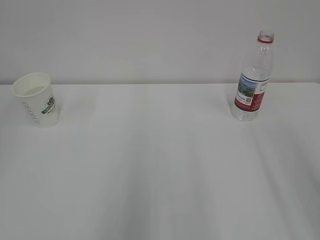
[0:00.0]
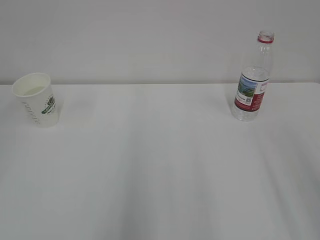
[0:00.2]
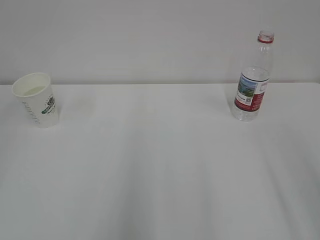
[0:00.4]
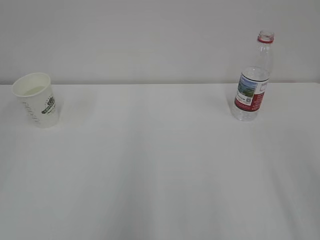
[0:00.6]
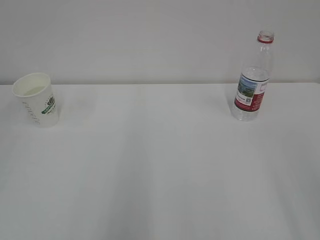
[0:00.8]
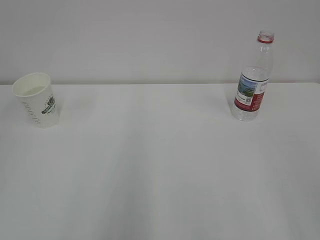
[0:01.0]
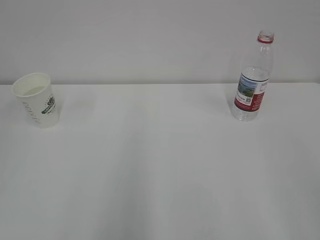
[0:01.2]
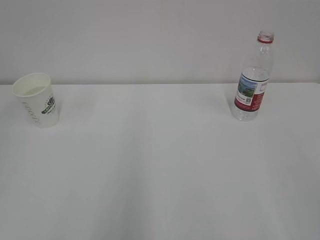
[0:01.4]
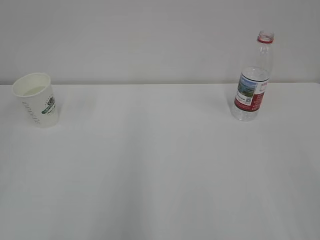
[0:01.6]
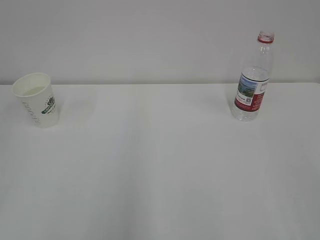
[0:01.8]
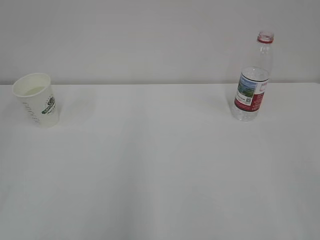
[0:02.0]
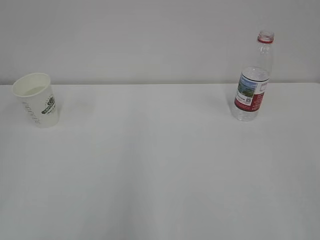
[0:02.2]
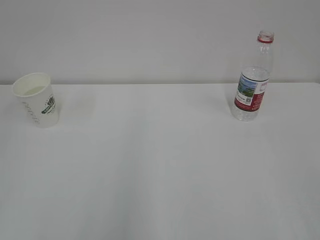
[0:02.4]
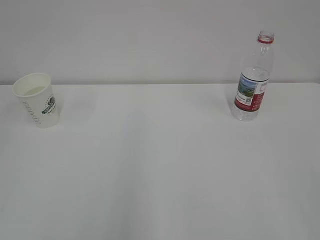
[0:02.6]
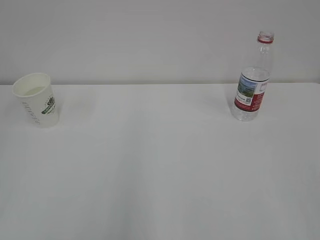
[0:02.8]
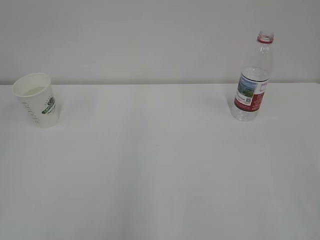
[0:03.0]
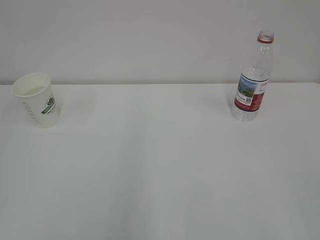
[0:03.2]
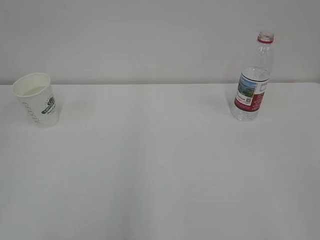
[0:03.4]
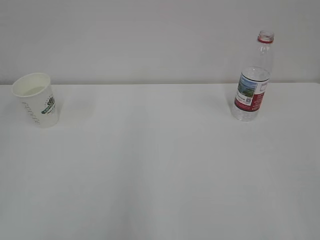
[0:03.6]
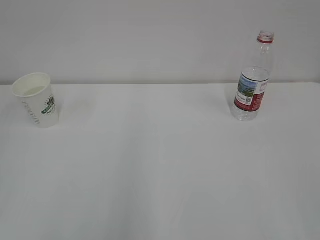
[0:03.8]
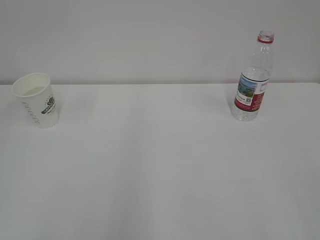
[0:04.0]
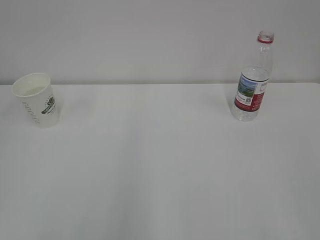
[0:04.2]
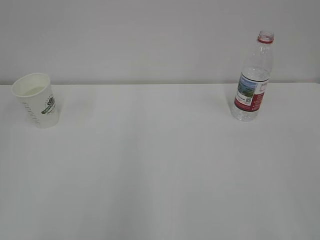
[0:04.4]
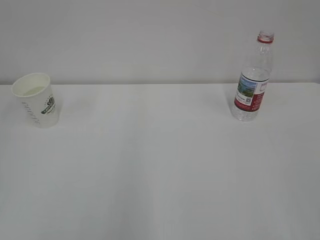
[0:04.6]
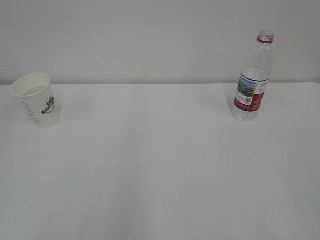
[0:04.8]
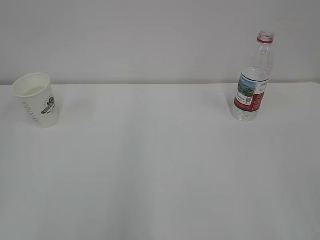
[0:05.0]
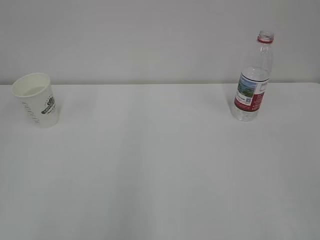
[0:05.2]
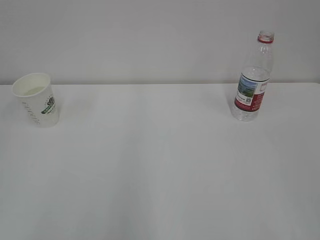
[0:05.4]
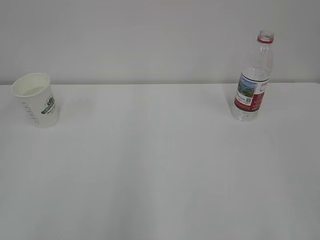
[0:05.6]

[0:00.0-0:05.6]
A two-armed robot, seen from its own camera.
2.8 to 5.6 s: Both grippers stay put.

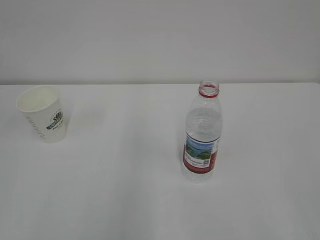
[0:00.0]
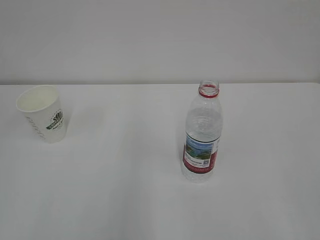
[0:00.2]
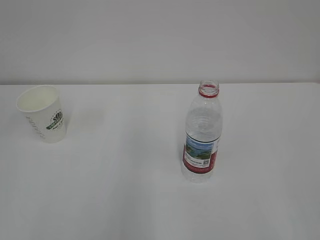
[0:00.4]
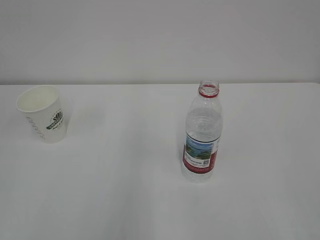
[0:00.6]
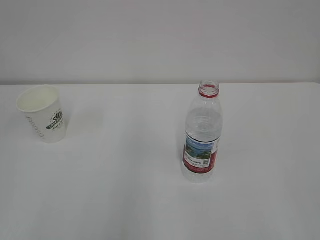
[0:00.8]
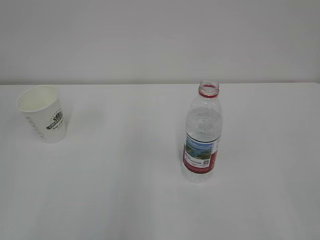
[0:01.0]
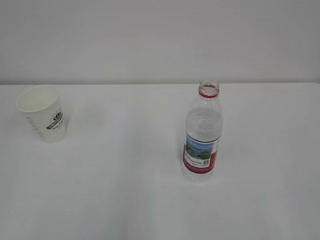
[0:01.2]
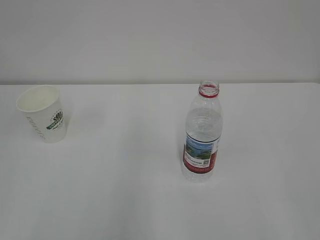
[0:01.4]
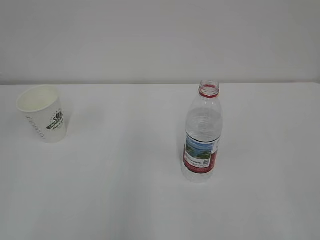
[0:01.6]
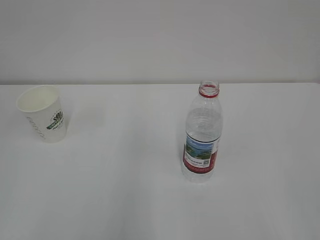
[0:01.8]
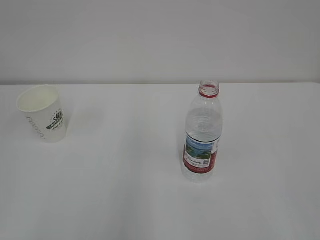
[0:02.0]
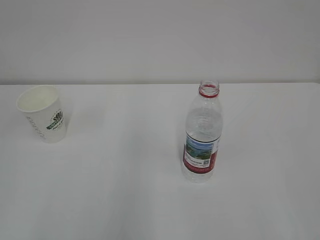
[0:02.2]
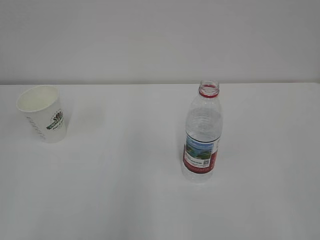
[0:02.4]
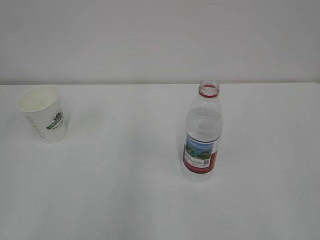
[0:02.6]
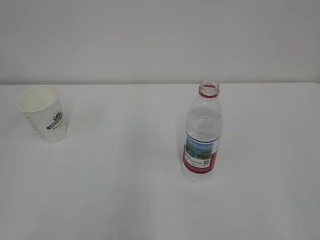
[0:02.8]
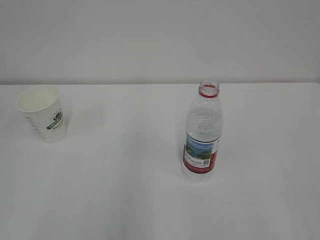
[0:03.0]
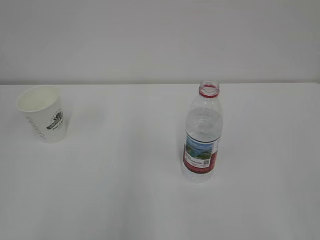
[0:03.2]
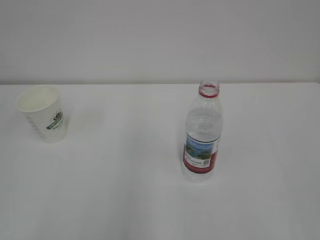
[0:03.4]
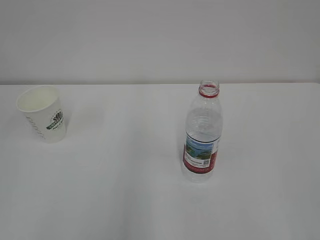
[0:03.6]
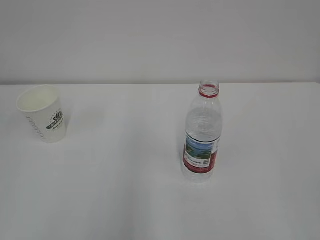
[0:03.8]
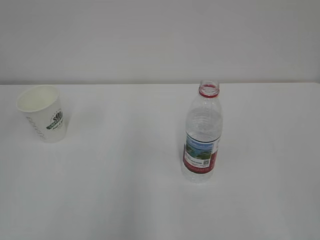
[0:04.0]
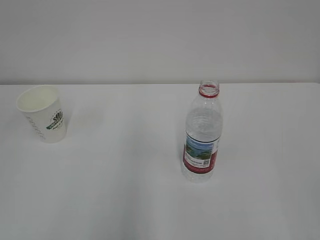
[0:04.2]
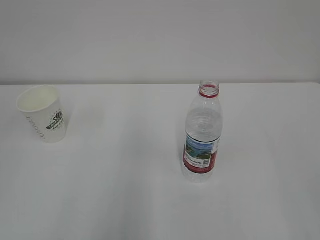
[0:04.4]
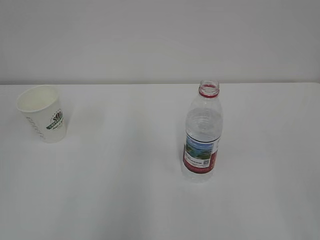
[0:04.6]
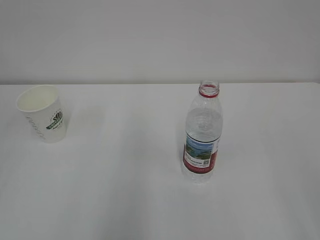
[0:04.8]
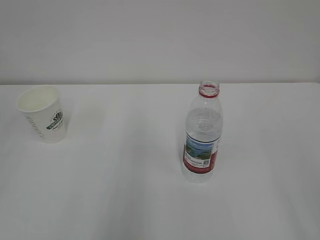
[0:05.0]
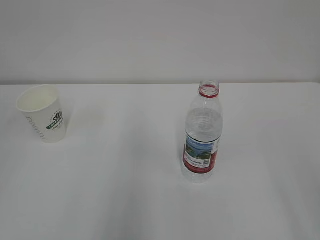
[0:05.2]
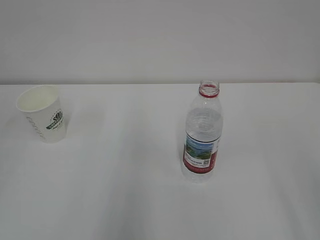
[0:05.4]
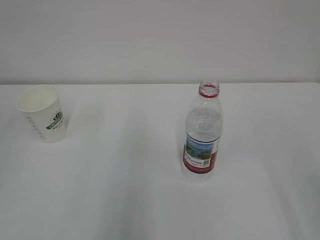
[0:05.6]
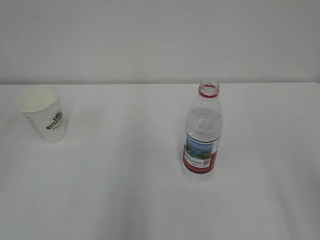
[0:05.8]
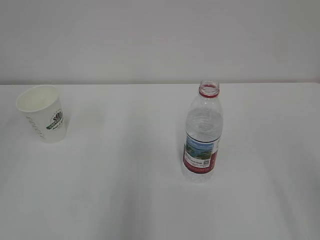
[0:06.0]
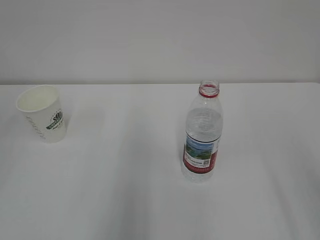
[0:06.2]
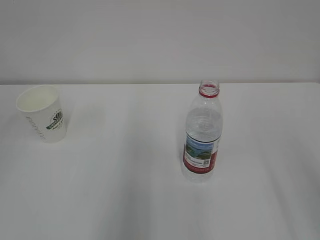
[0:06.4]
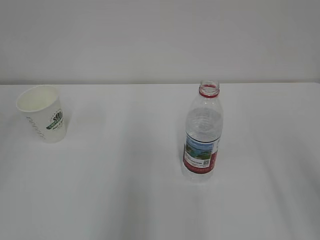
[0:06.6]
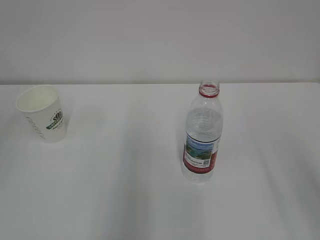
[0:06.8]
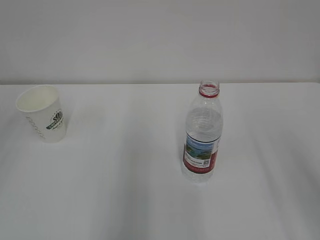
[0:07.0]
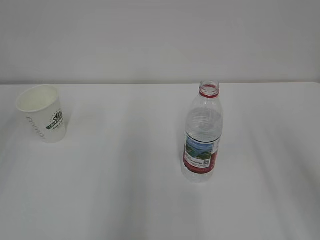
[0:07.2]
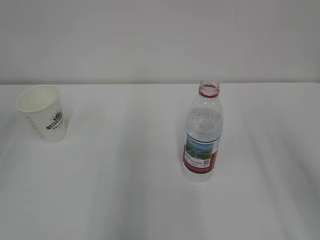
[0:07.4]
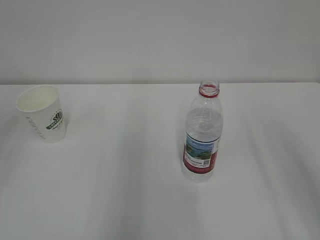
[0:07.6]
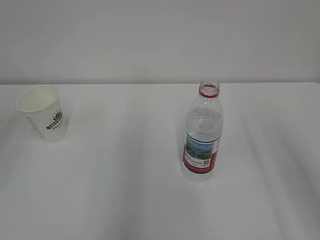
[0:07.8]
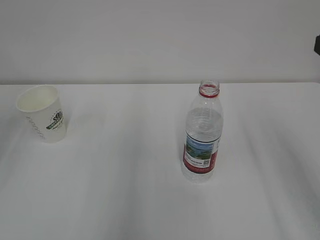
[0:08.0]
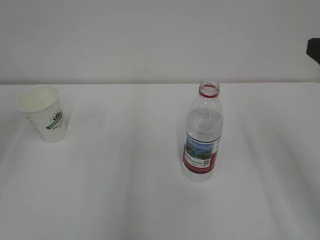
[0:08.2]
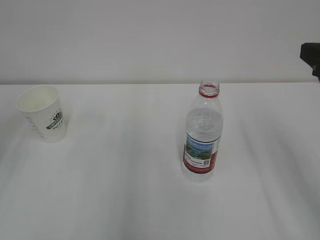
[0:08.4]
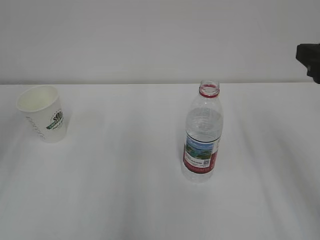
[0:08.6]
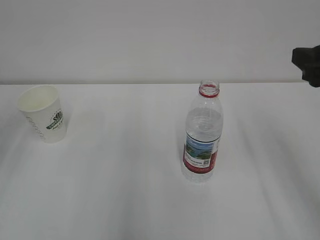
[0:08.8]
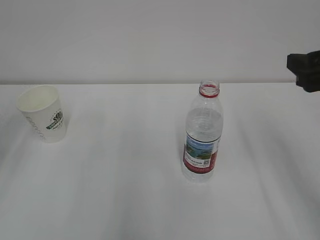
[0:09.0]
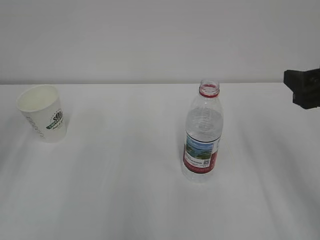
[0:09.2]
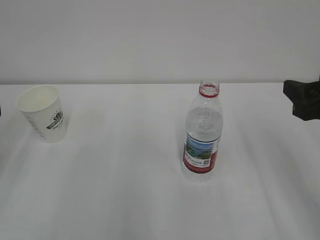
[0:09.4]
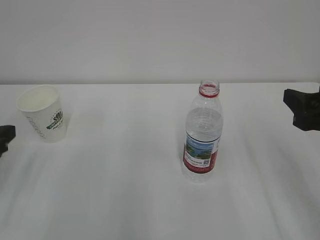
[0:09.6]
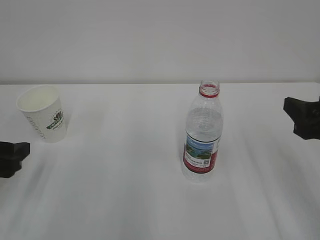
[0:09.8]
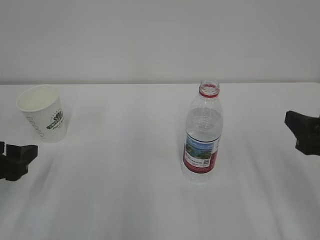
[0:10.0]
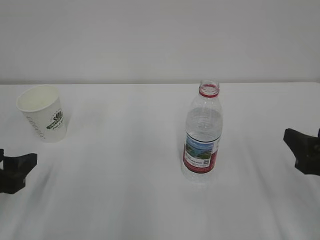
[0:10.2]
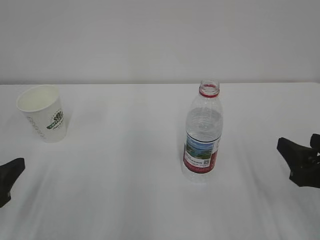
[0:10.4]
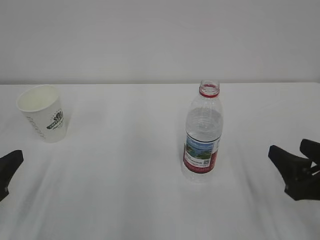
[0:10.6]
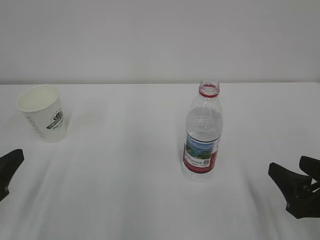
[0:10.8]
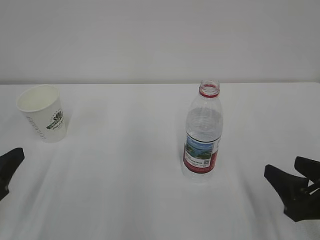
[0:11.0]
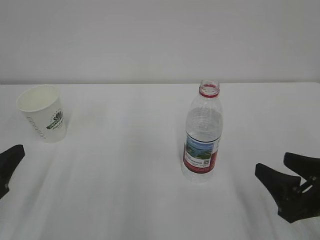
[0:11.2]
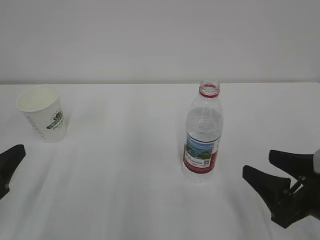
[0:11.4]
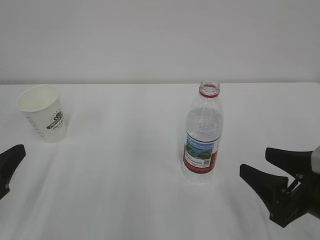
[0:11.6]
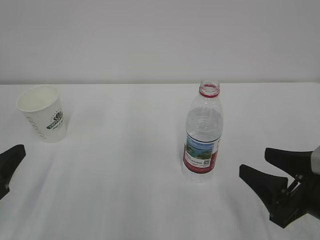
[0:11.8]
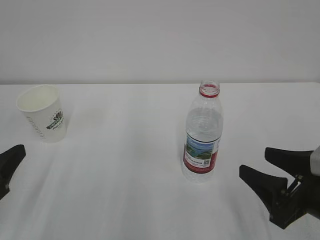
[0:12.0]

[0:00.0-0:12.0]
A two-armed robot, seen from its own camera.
1.6 to 3.0 s: Both grippers stay about where they are.
7.6 to 9.0 s: The right gripper shifts approximately 10 cm forward and downward.
9.0 to 10.4 s: Both grippers move downward and backward, about 15 cm.

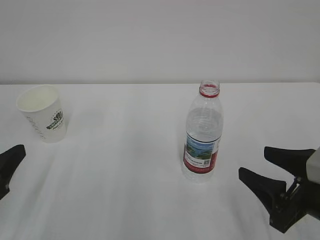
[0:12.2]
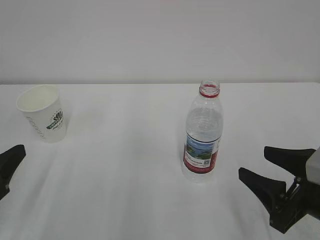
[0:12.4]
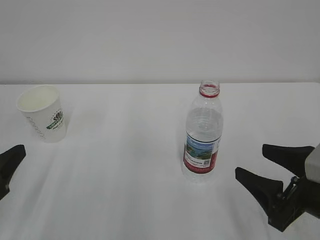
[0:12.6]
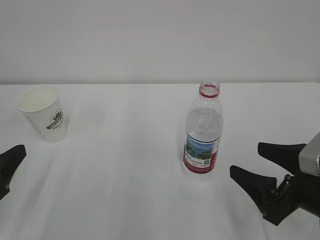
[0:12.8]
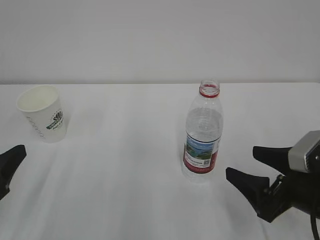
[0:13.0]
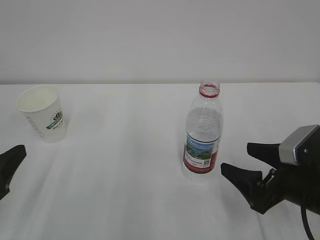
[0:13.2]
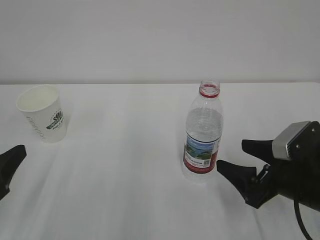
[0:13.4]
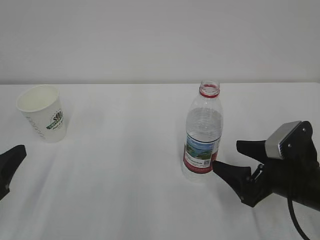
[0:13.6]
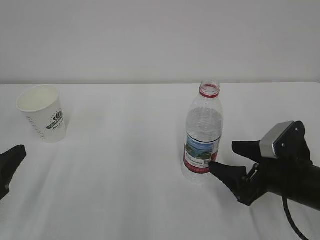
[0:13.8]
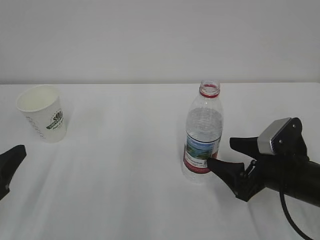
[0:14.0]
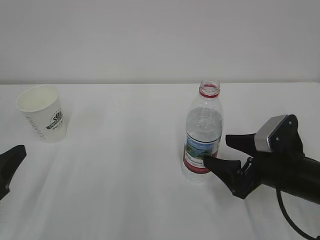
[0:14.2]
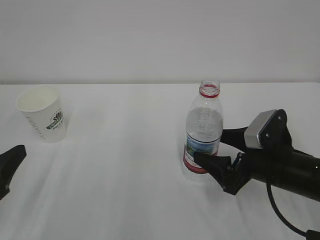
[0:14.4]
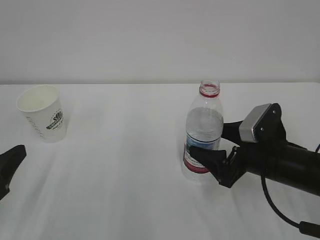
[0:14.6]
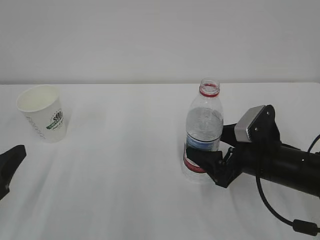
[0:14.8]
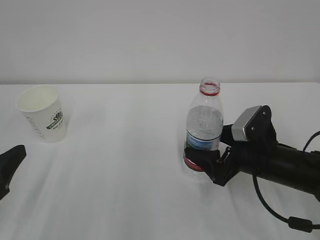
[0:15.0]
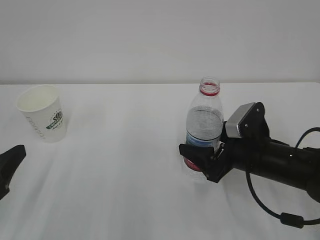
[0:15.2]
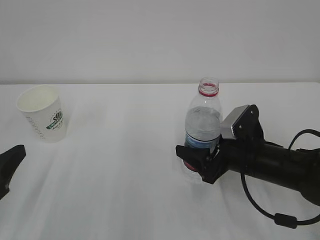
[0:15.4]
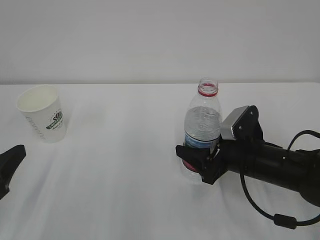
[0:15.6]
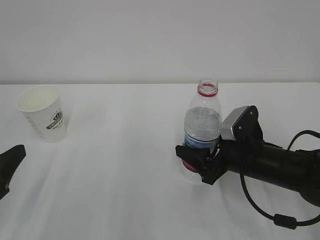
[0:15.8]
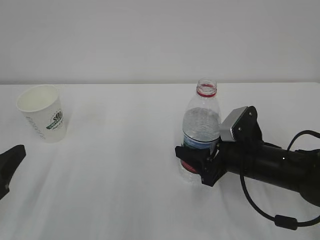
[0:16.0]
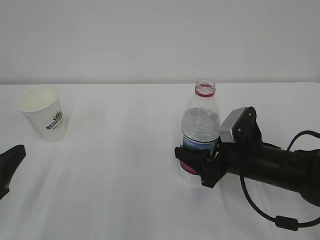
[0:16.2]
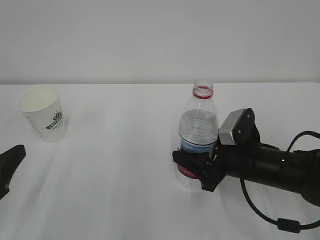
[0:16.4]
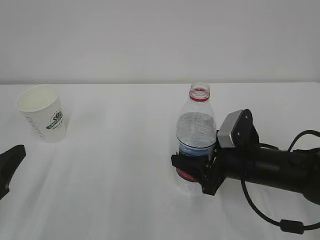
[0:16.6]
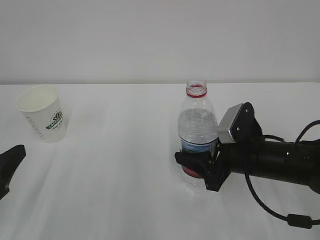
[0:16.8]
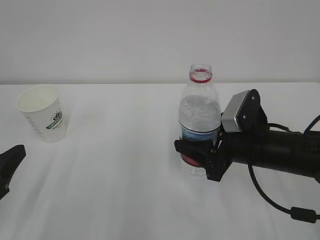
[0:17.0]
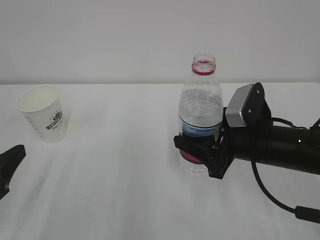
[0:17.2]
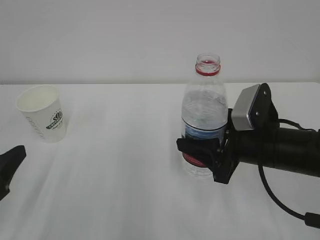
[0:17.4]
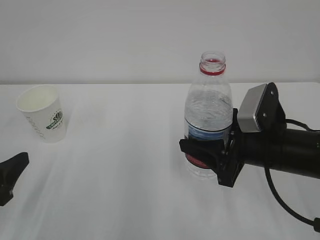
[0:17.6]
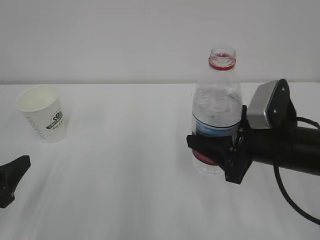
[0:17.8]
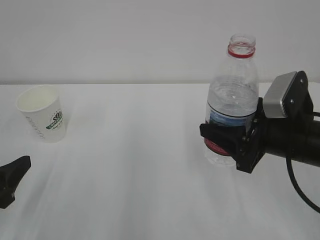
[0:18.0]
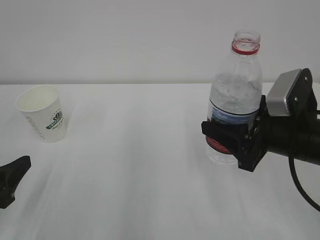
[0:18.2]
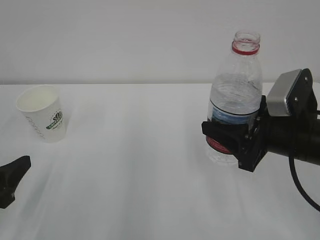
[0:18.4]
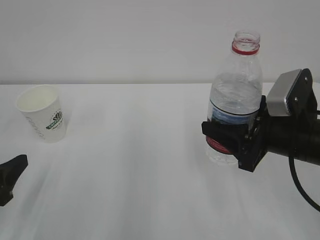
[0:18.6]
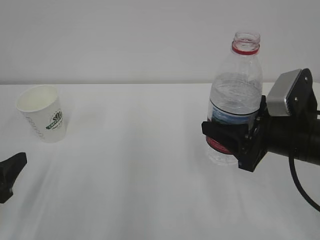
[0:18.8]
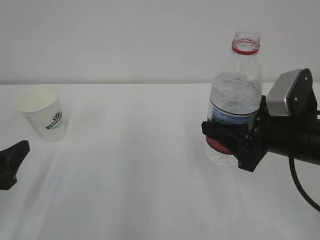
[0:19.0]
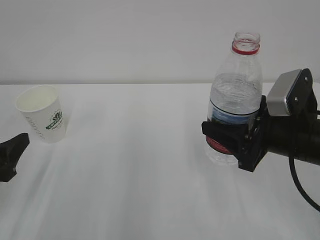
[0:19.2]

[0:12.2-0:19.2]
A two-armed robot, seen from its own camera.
12.2 to 13.6 s: The right gripper goes roughly 5 cm forward, and opens its fingers.
13.6 to 15.0 s: The right gripper changes place by approximately 5 cm.
15.0 to 16.4 s: The right gripper closes up.
16.4 to 17.8 s: The right gripper moves upward, roughly 10 cm.
17.8 to 19.2 s: There are only small adjustments of the grippers.
